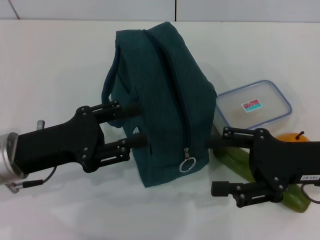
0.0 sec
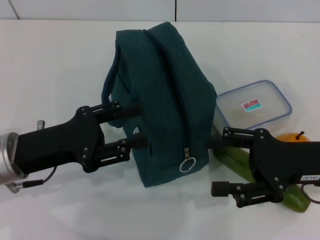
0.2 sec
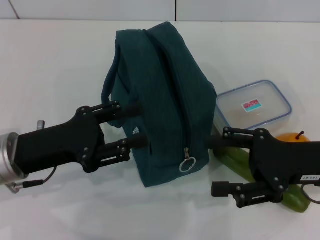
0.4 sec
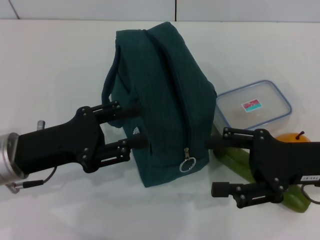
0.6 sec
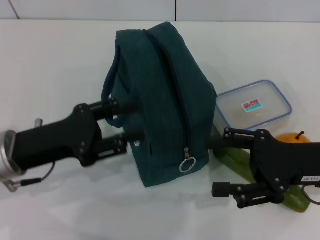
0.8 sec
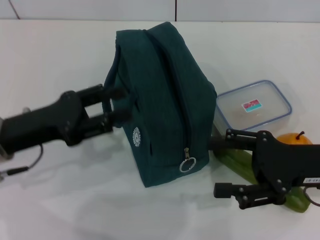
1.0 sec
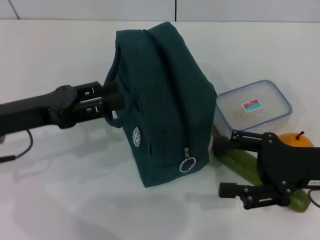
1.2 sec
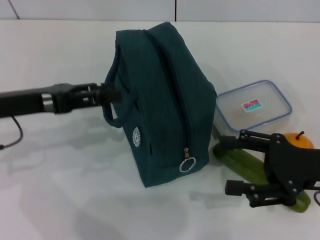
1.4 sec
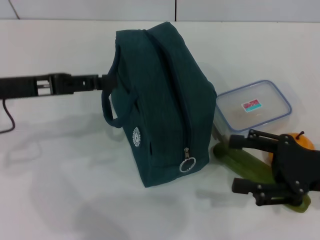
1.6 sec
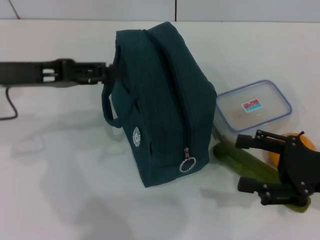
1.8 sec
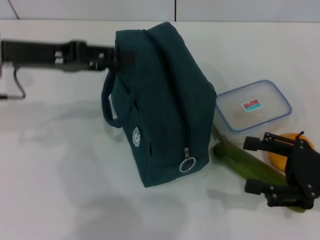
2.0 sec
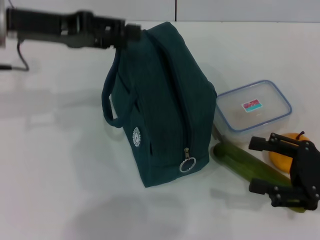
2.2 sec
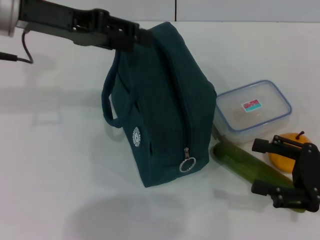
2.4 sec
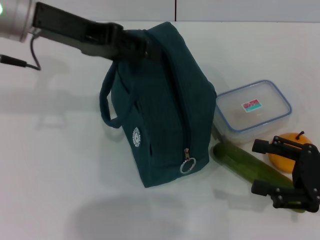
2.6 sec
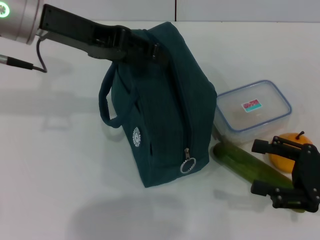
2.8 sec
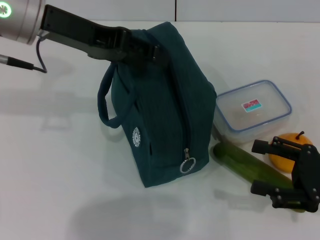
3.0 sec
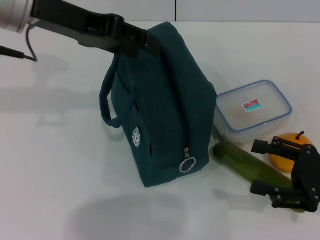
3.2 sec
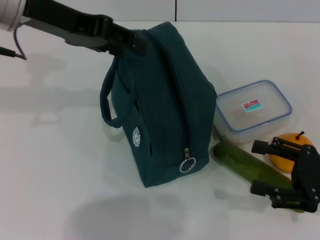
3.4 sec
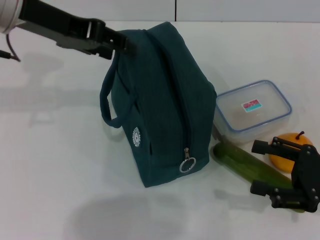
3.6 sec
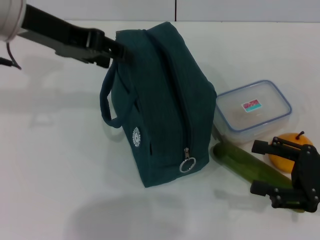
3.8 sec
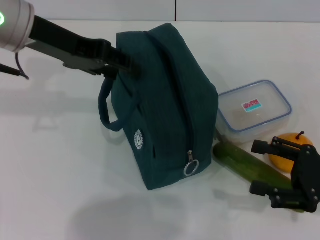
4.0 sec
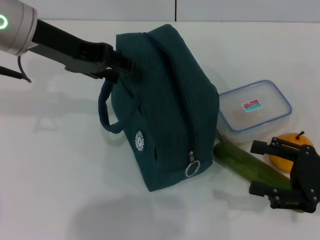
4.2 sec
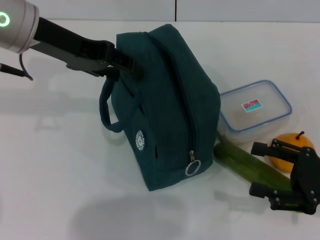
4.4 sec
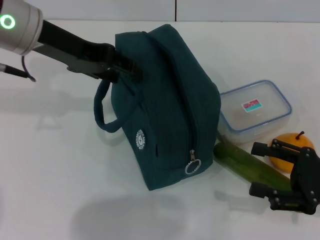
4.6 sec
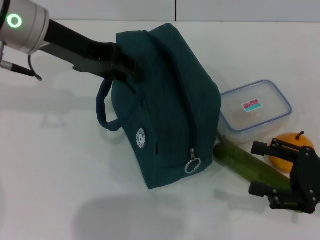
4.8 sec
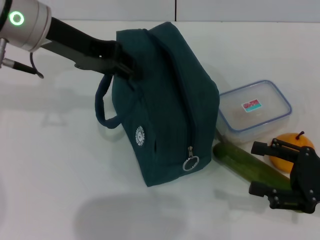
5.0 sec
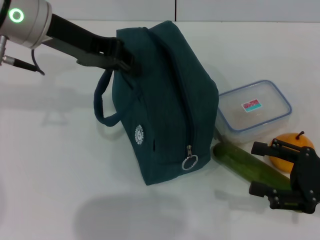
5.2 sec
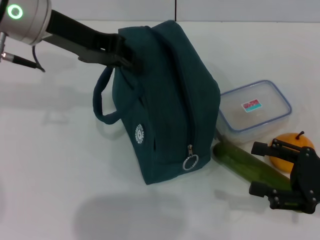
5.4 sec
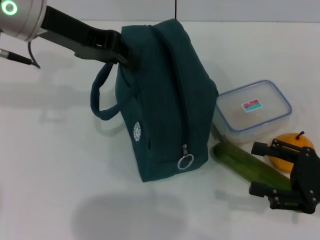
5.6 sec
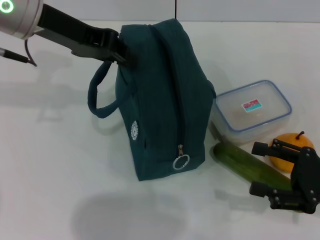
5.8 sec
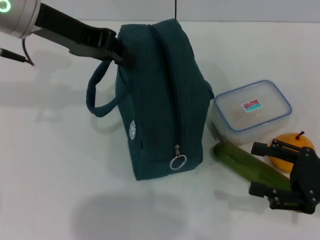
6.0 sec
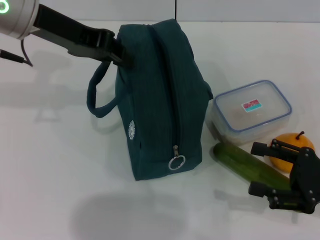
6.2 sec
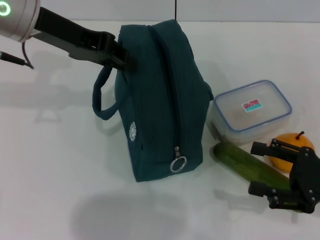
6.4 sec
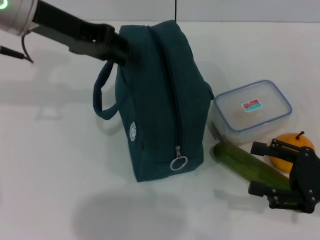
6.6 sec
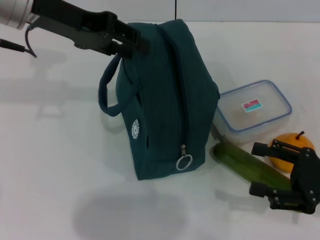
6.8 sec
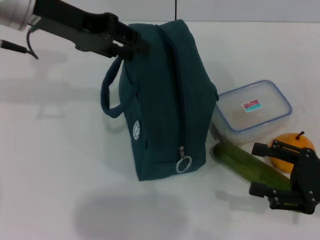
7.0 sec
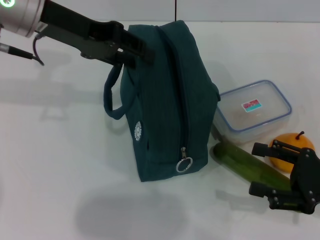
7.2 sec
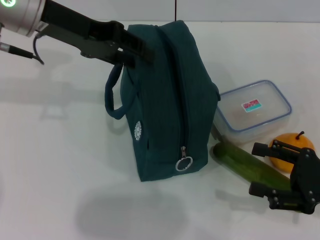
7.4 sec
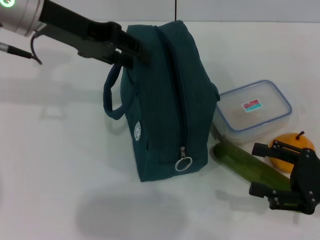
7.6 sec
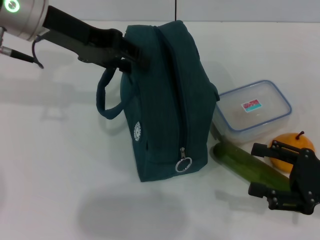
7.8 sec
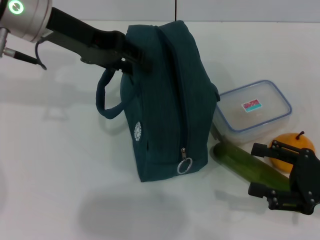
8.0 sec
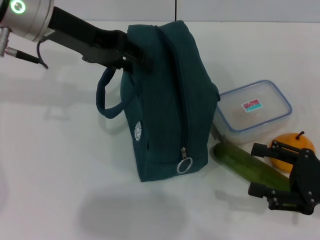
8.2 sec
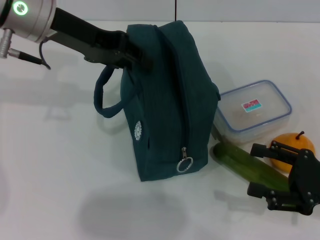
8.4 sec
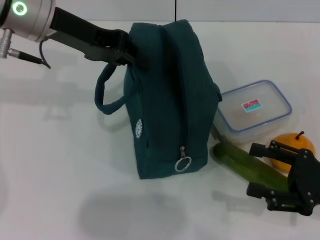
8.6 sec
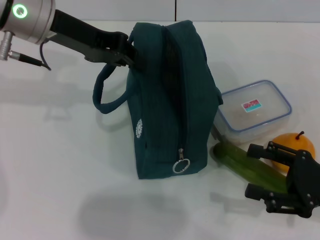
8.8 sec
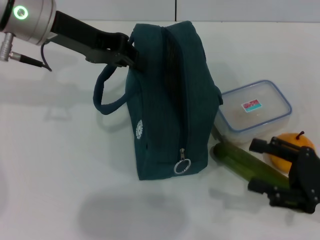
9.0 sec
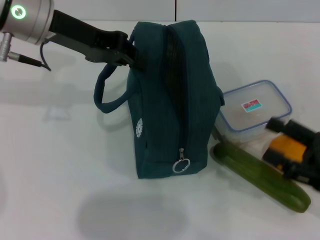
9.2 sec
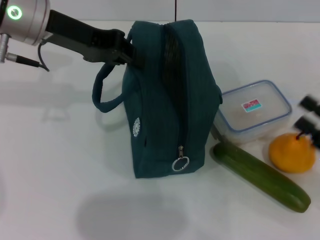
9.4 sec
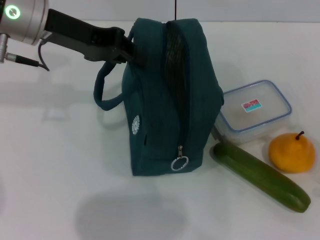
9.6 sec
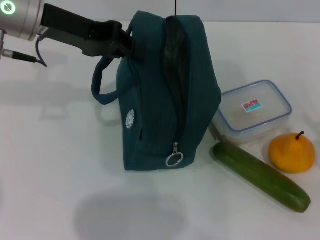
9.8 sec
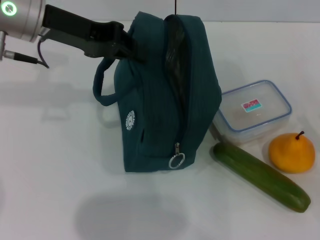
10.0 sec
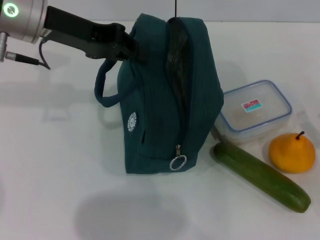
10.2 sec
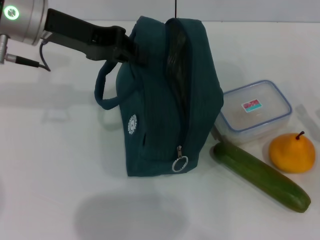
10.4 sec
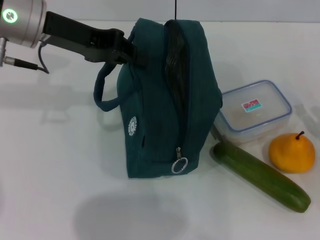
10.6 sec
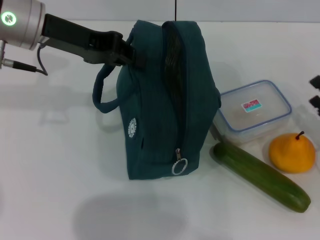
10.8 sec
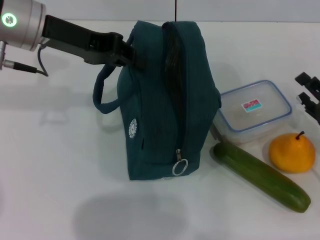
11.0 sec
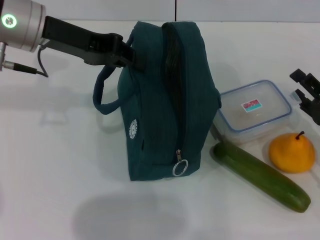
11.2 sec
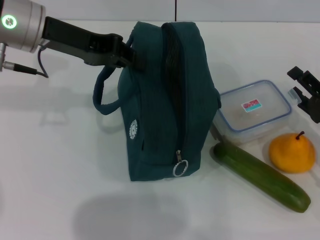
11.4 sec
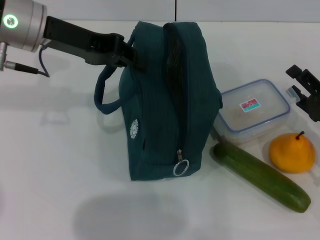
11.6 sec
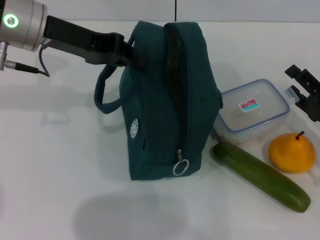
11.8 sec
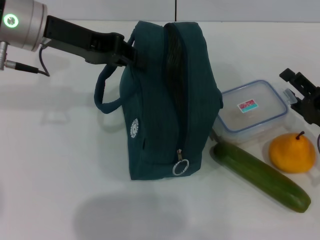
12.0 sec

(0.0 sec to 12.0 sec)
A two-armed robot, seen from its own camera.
Step, 0.0 sec - 9.0 sec: Hold the lunch bag with your left hand.
0.0 sec - 1.6 sec: The left gripper is displaced upward and forward by about 10 cm.
1.6 sec - 3.0 sec: The left gripper moves upward, to the right and forward, some 15 cm.
3.0 sec - 4.4 sec: The grippers stay close to where they were, moving slightly.
4.4 sec - 6.0 sec: The left gripper closes.
6.0 sec - 7.6 sec: The left gripper opens up.
7.6 sec - 9.0 sec: The left gripper closes.
9.0 sec - 10.4 sec: The right gripper moves about 5 cm.
10.4 sec - 12.0 sec: The right gripper shifts about 5 cm forward.

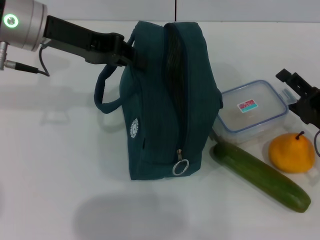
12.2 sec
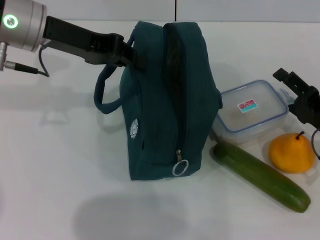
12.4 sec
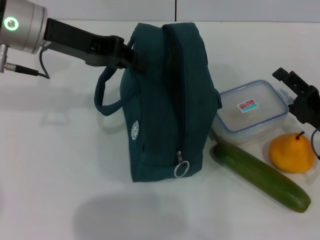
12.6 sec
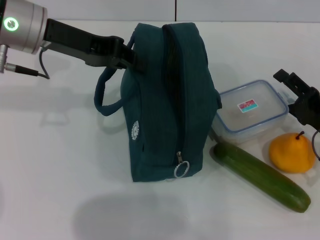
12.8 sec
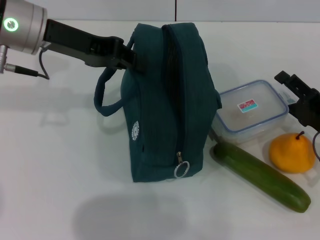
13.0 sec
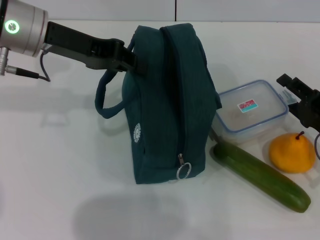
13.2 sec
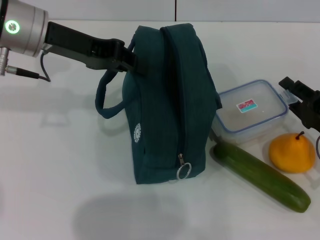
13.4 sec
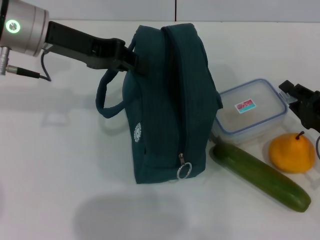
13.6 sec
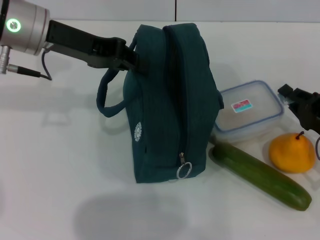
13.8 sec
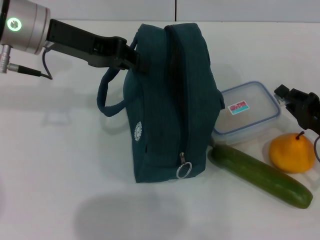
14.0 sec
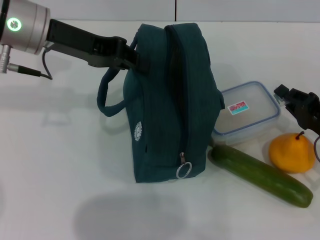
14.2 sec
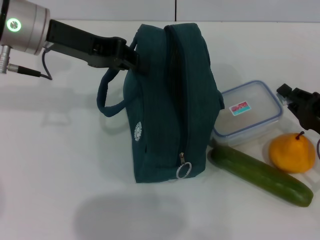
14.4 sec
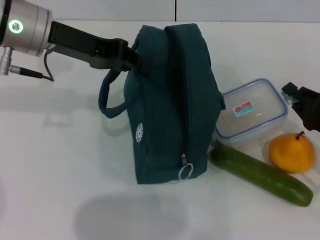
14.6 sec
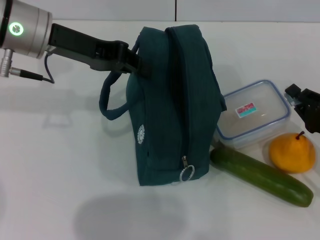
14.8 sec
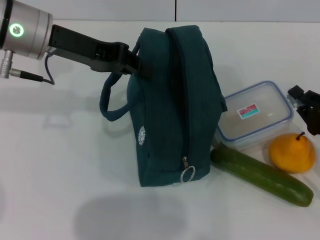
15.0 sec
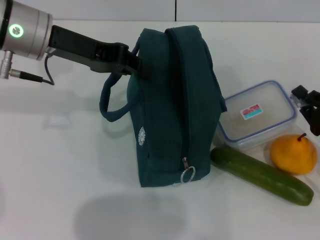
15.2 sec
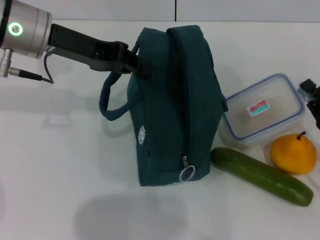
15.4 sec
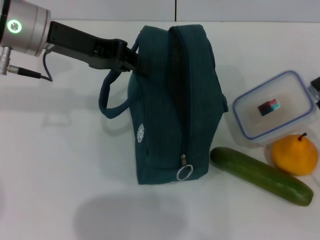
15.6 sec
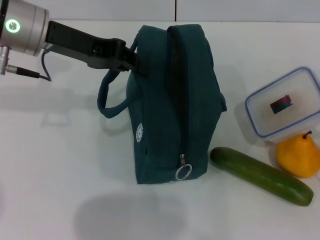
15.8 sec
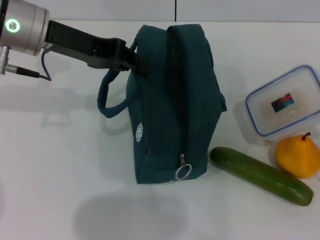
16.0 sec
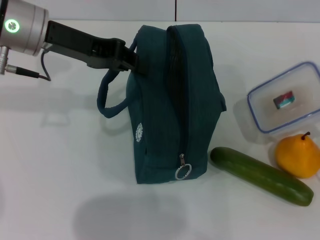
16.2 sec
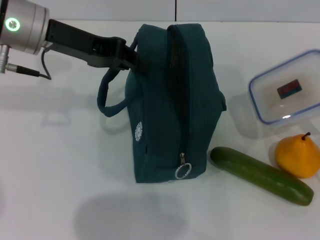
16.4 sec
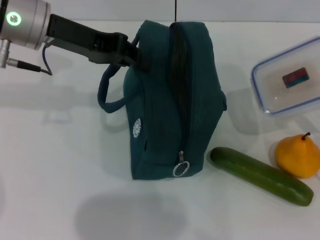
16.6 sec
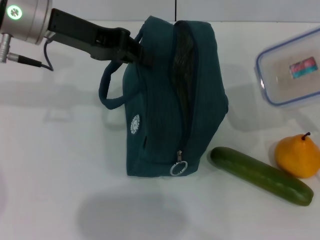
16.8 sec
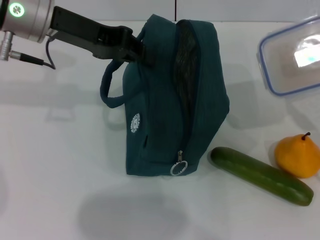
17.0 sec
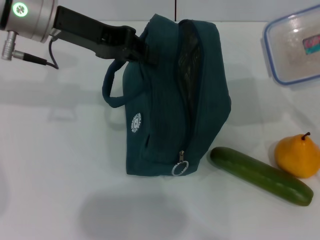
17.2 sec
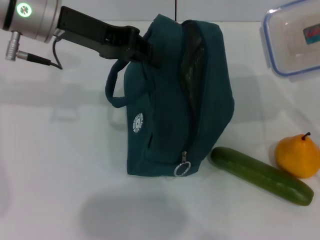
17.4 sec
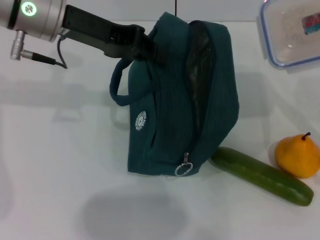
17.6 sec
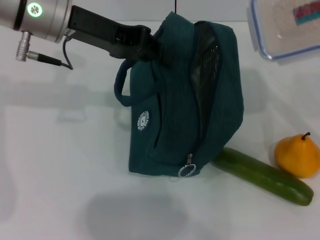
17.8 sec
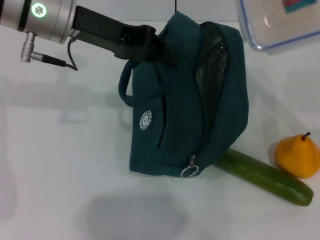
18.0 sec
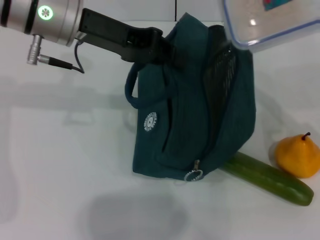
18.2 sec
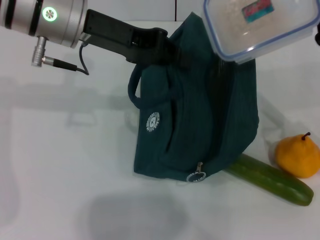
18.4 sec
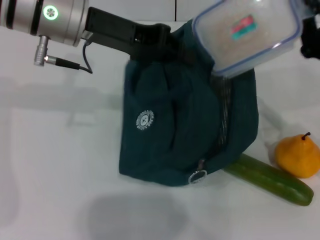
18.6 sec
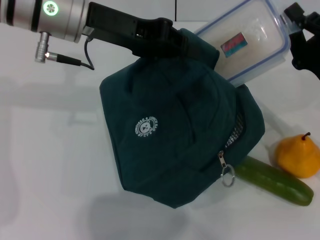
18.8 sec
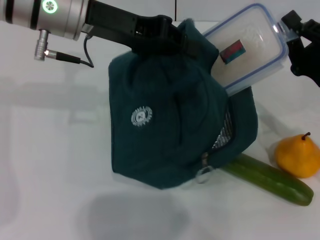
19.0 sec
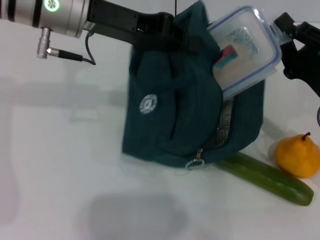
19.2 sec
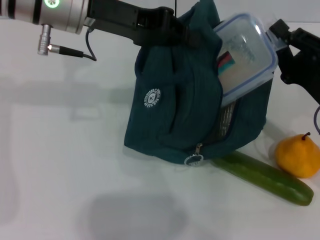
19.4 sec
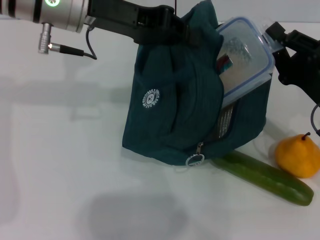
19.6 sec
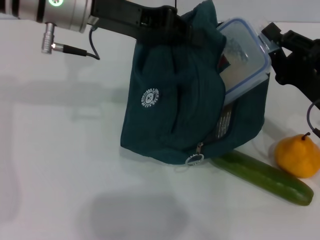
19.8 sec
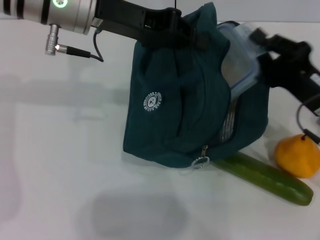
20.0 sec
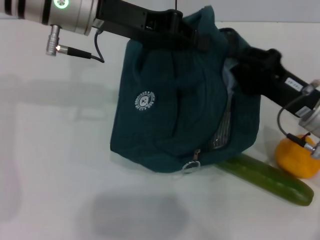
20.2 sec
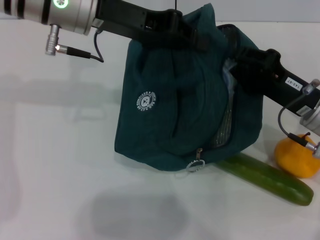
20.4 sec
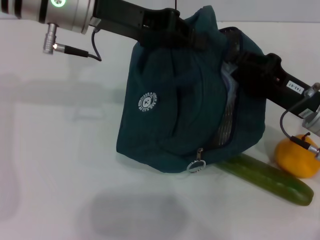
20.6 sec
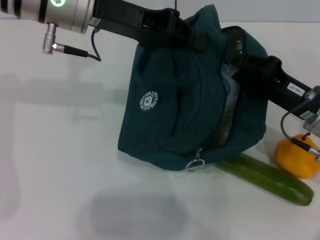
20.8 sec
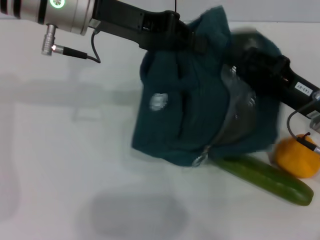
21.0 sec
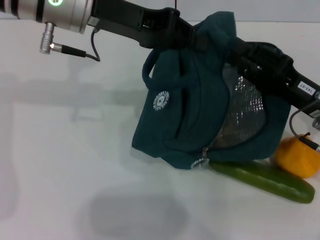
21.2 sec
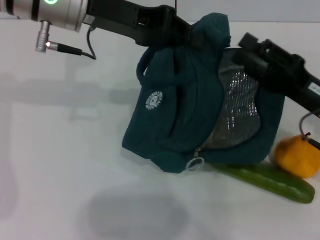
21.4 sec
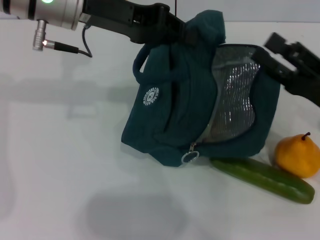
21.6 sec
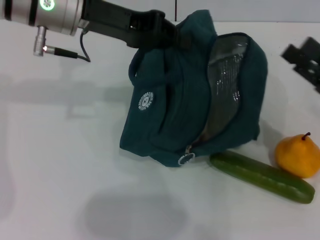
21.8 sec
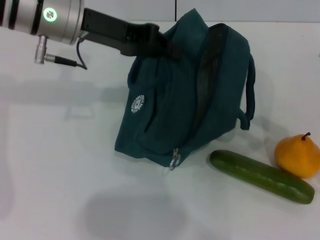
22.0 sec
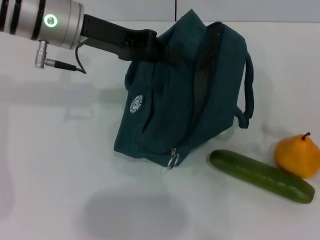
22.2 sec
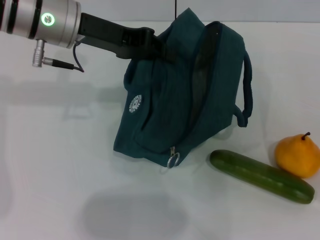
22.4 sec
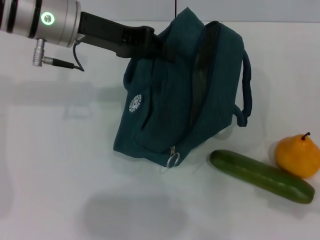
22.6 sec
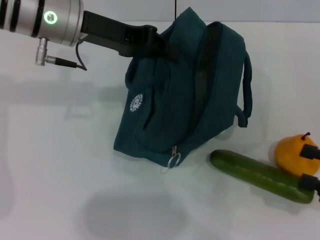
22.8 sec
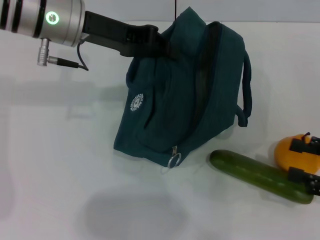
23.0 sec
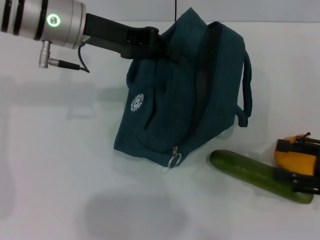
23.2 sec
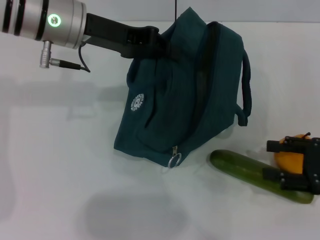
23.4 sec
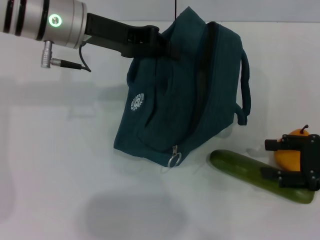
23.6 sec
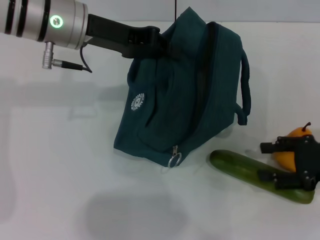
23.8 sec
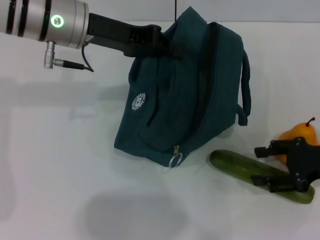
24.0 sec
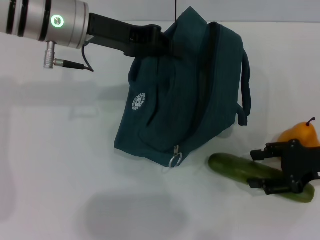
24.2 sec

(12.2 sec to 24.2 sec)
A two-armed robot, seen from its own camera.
Step, 14.2 sec - 21.2 sec: Place the lunch box into the lunch bag with your right hand.
12.2 sec - 13.8 sec: The right gripper closes its fingers.
13.8 sec - 15.2 sec: There are only small adjustments of the grippers.
15.2 sec - 16.6 sec: The grippers stay close to where they were, moving slightly.
16.6 sec - 18.2 sec: The right gripper is displaced upward and to the left by roughly 10 cm.
19.8 sec - 21.2 sec: The grippers move only a little.
21.2 sec - 22.6 sec: The right gripper travels to the right and backward by approximately 15 cm, and opens up.
22.6 sec - 24.2 sec: The right gripper goes about 15 cm forward and to the left.
